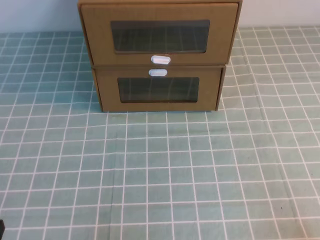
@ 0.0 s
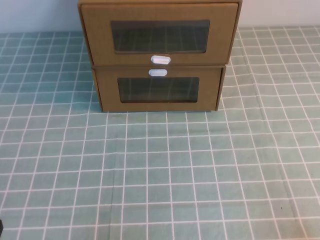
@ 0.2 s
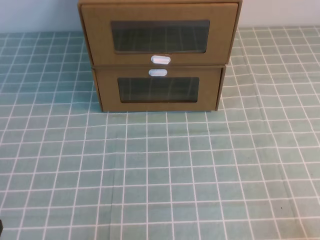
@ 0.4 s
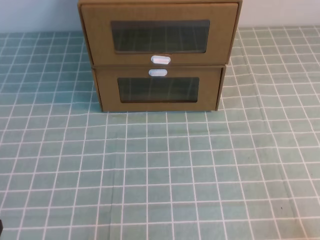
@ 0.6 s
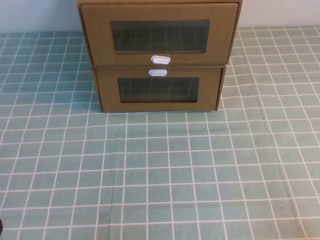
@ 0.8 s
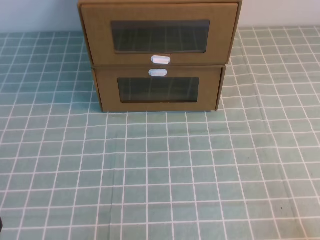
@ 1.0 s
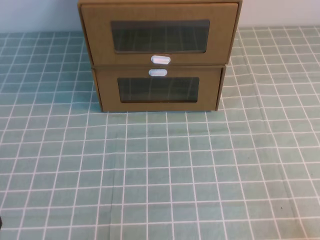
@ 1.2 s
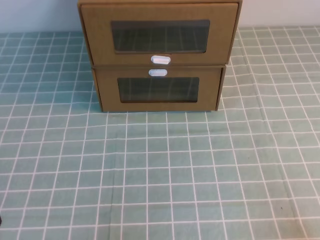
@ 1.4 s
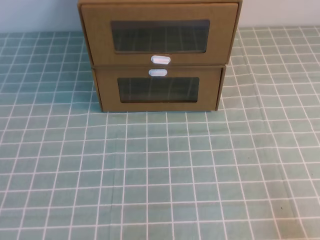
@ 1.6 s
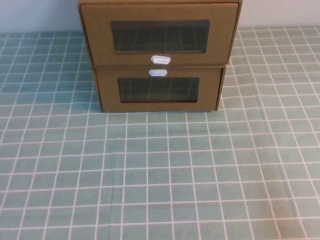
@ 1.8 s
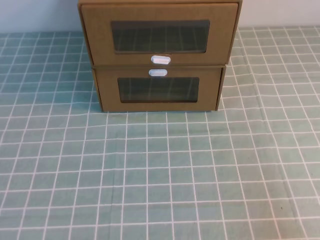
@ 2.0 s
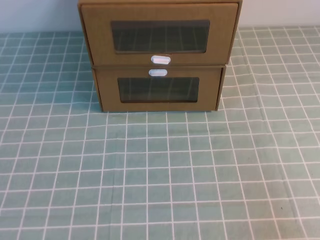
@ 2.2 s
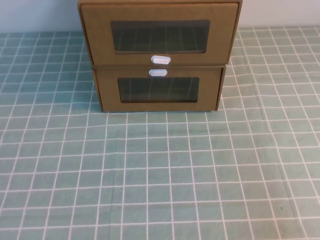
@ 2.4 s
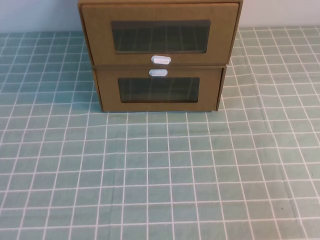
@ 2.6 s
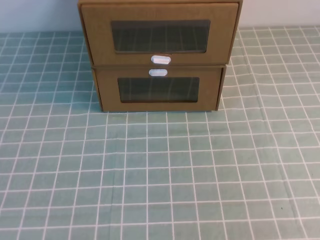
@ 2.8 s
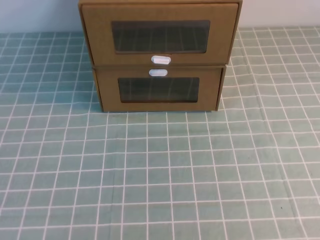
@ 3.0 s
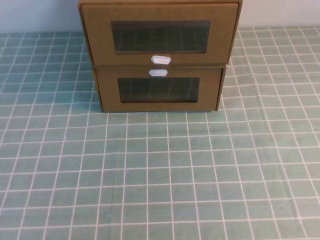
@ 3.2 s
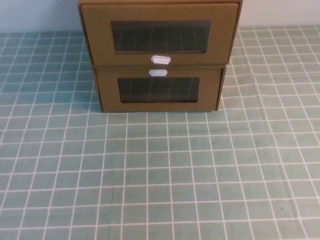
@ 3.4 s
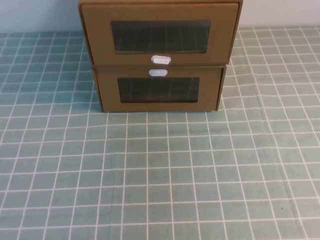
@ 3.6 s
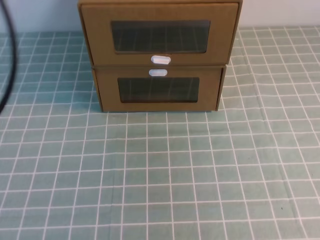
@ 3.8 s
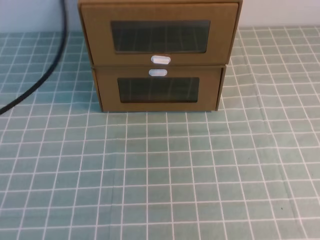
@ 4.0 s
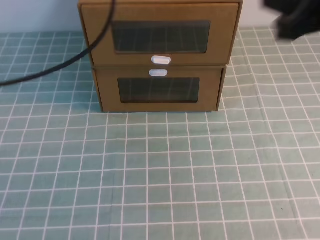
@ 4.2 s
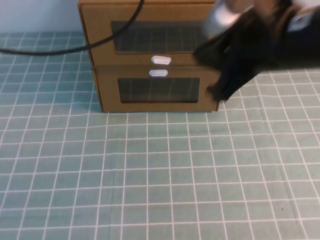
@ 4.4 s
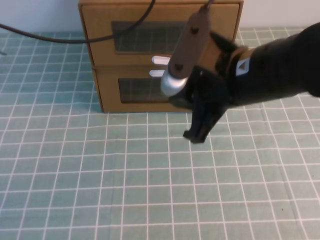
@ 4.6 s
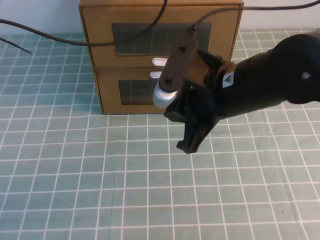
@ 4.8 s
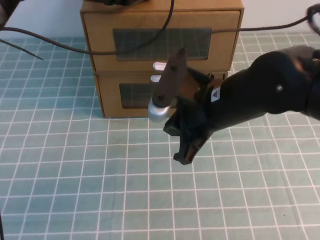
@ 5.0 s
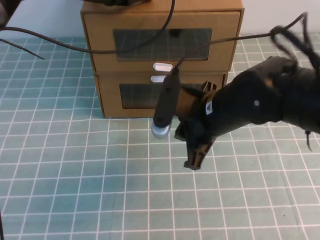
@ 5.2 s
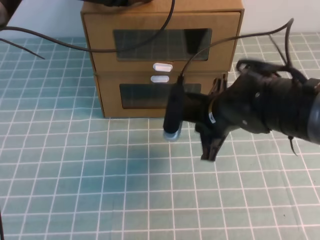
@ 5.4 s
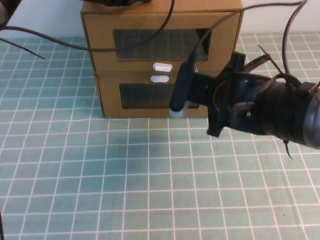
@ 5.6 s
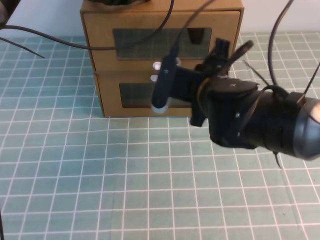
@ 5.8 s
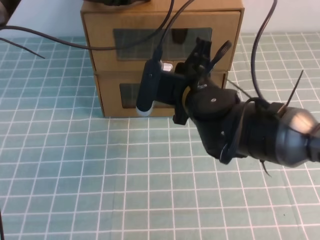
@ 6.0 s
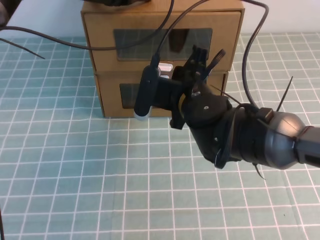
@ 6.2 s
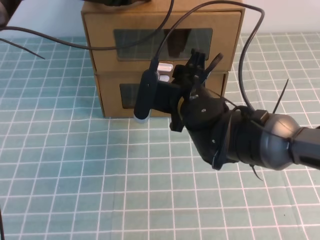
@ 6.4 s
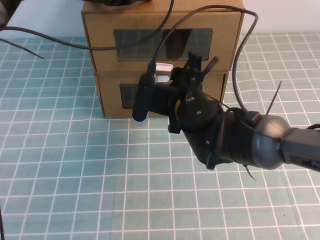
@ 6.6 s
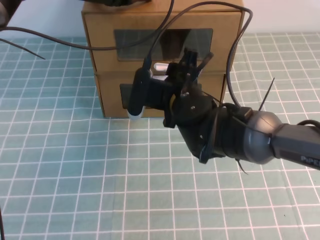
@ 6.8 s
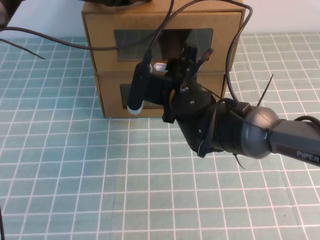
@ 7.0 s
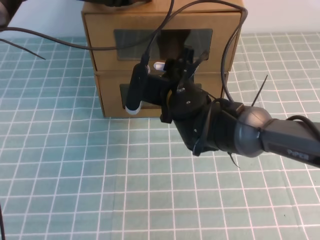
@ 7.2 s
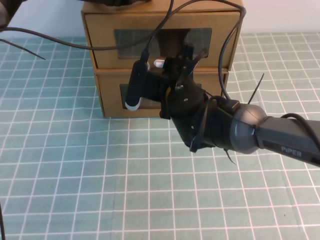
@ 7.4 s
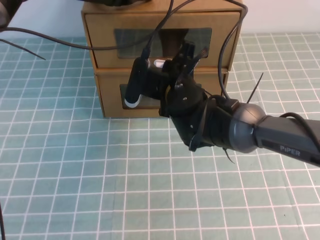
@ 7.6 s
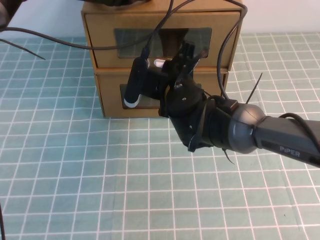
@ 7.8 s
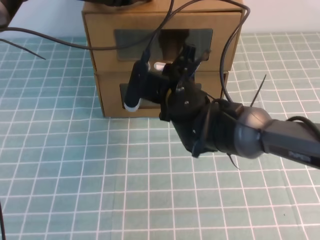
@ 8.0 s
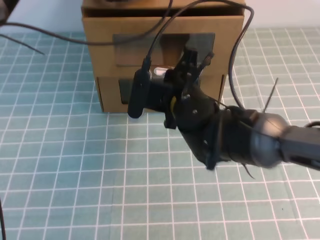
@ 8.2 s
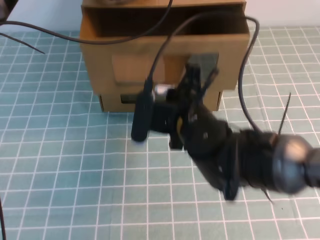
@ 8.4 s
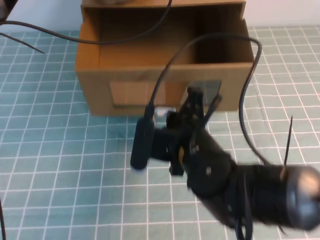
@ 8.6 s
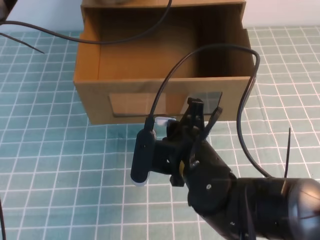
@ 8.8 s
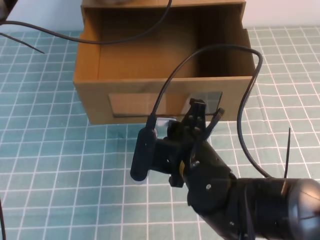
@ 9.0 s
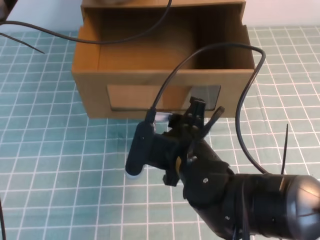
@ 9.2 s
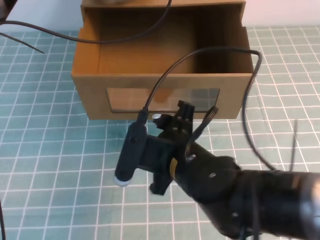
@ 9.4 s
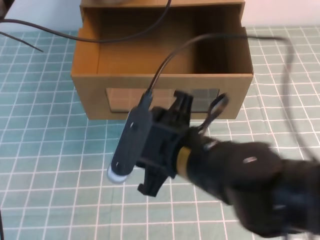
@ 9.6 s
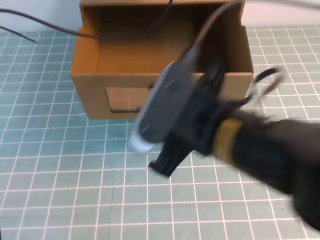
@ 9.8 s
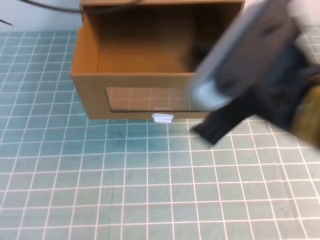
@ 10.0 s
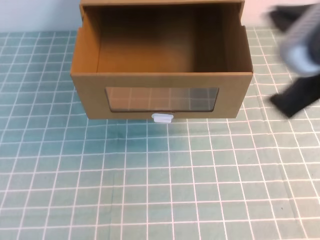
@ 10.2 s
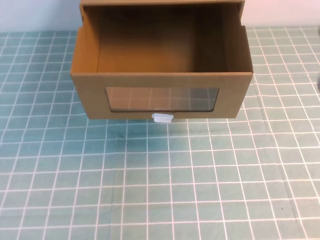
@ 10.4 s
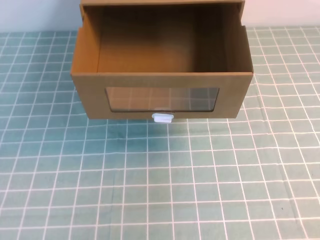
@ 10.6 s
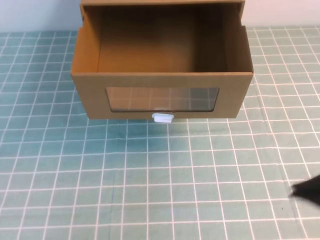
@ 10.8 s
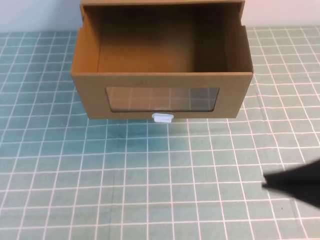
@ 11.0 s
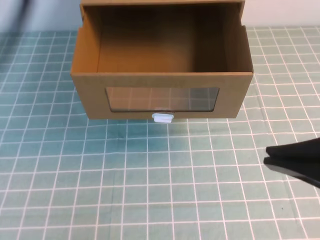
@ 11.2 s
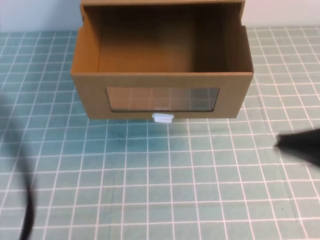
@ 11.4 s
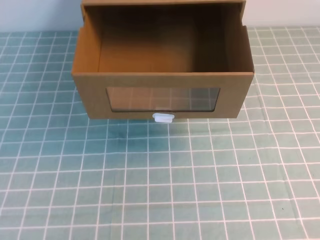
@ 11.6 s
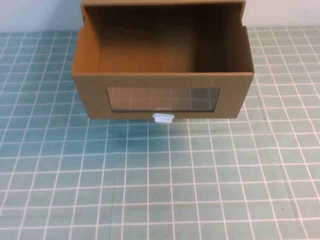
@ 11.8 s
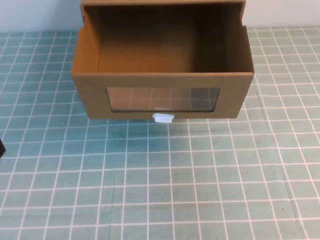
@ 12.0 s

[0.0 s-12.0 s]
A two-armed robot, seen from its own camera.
Task of the whole recording: open the shoebox on the cyan tablecloth.
1.6 to 3.0 s: The right gripper is displaced upward by about 25 cm.
3.0 to 4.4 s: The left gripper heads forward, covering roughly 40 cm. The right gripper shifts some 35 cm forward and to the left.
4.4 to 6.0 s: The left gripper travels forward and downward by approximately 10 cm. The right gripper heads downward, to the left and forward, covering roughly 15 cm.
6.0 to 7.6 s: The right gripper moves roughly 5 cm, and opens, then closes once more.
7.6 to 9.0 s: The right gripper shifts about 15 cm backward.
9.0 to 10.4 s: The left gripper shifts about 25 cm upward and backward, while the right gripper goes some 25 cm upward, to the right and backward, and opens and closes again.
10.4 to 12.0 s: The left gripper shifts about 30 cm backward and downward. Meanwhile the right gripper travels to the right by about 5 cm.

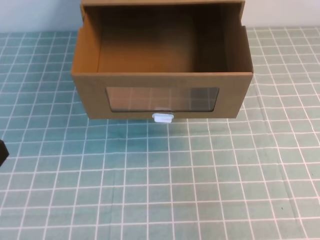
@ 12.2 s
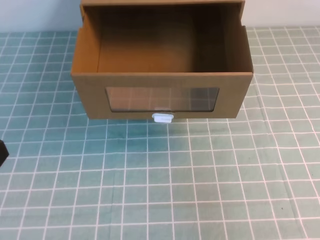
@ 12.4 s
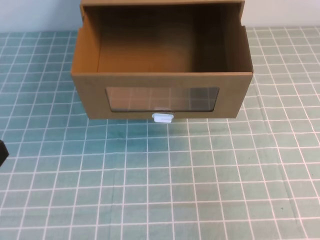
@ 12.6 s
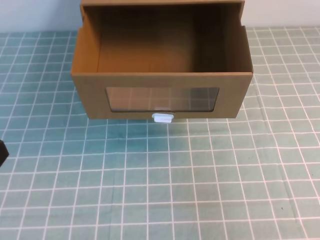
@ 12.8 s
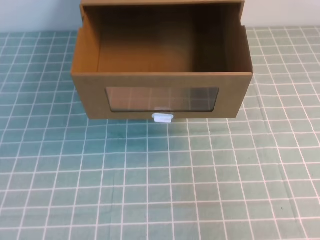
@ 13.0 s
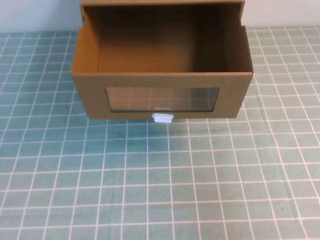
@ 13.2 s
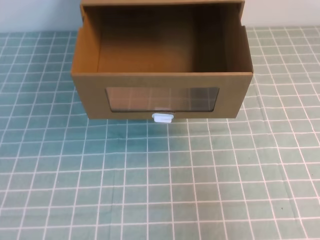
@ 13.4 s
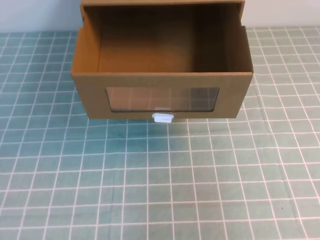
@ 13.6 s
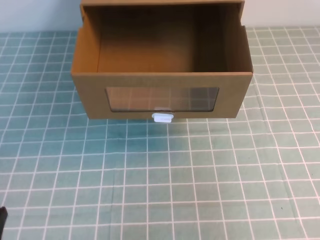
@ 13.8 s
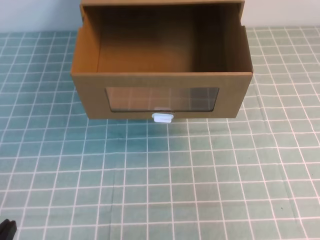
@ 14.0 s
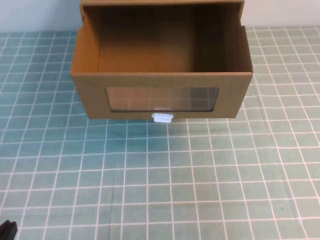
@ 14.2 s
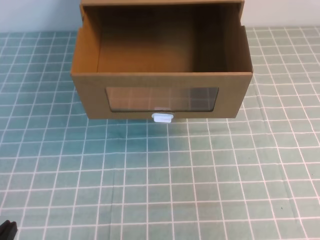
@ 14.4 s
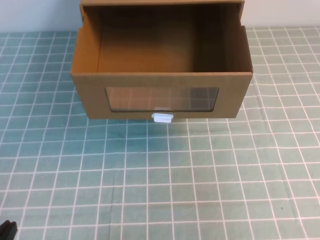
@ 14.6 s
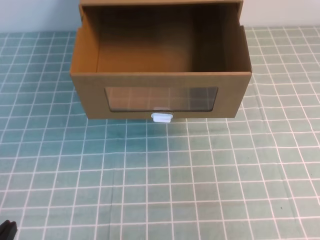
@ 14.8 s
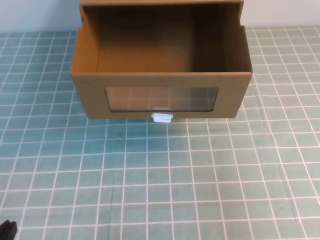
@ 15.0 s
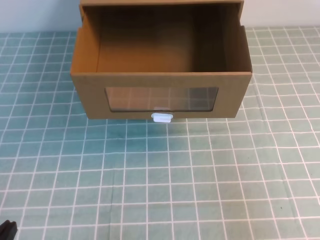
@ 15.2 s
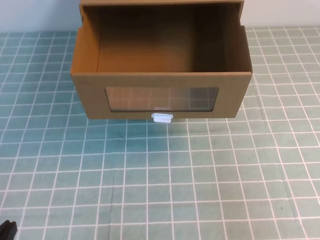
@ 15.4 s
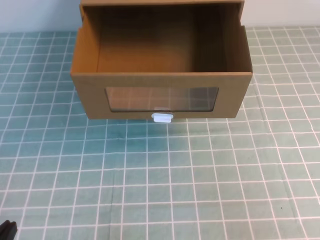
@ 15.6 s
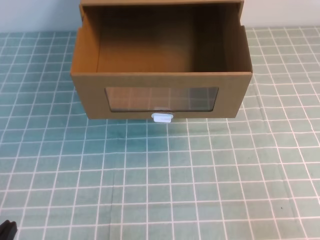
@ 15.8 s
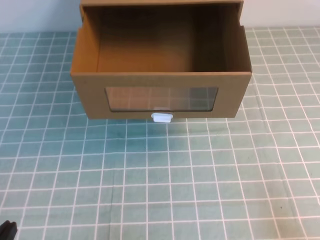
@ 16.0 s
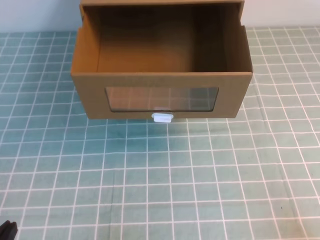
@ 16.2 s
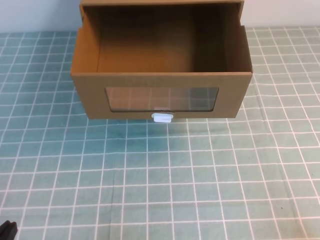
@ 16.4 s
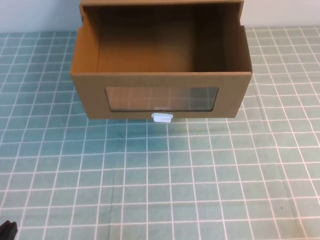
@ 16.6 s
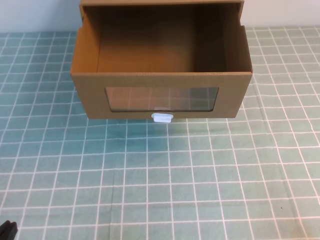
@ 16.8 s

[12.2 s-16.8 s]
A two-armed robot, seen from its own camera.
Task of the whole recording: open the shoebox on the cyan tablecloth.
15.2 to 16.8 s: The right gripper moves downward, some 15 cm.

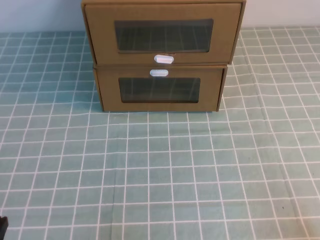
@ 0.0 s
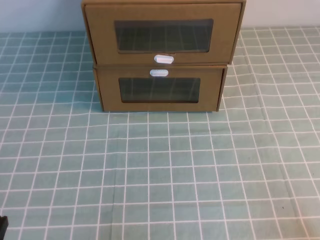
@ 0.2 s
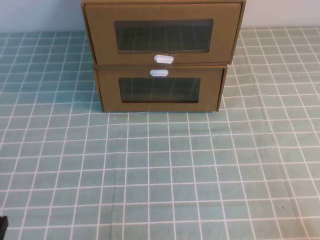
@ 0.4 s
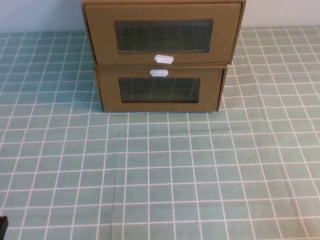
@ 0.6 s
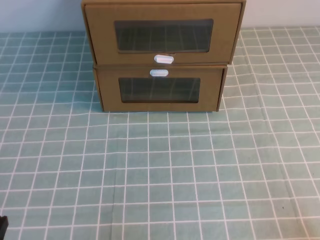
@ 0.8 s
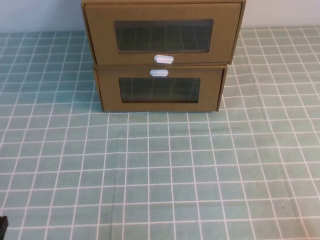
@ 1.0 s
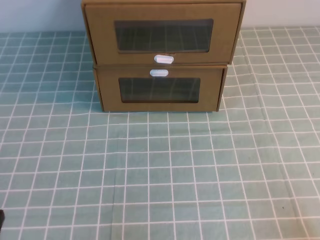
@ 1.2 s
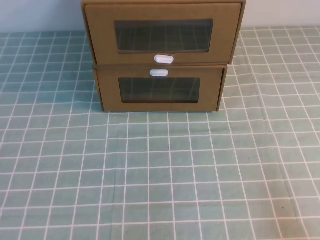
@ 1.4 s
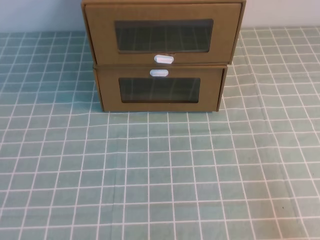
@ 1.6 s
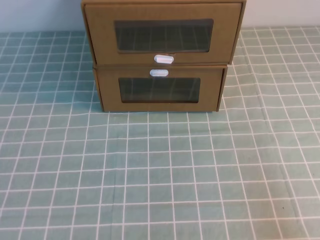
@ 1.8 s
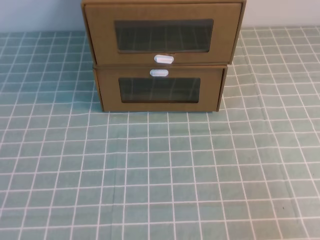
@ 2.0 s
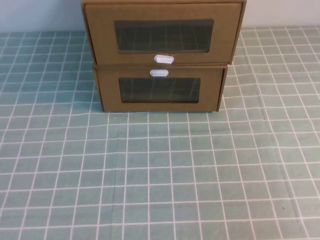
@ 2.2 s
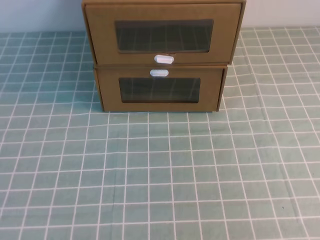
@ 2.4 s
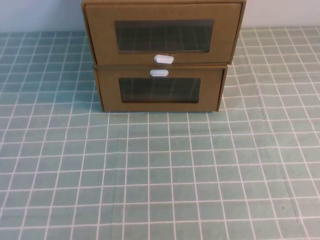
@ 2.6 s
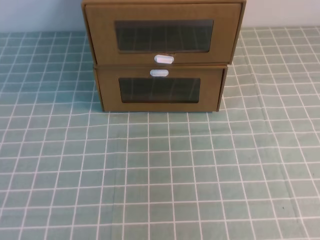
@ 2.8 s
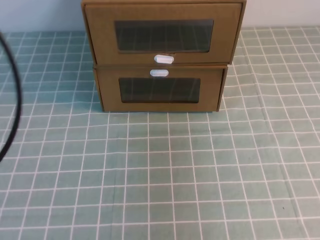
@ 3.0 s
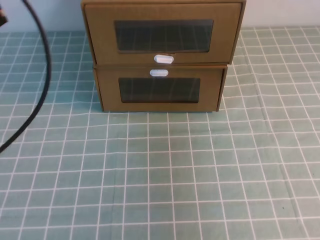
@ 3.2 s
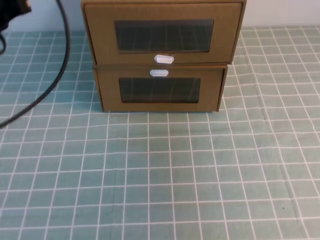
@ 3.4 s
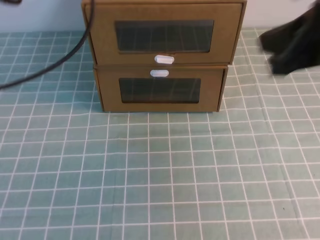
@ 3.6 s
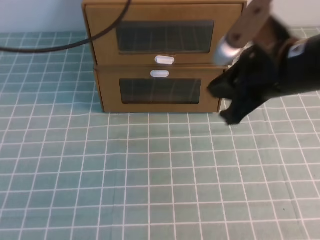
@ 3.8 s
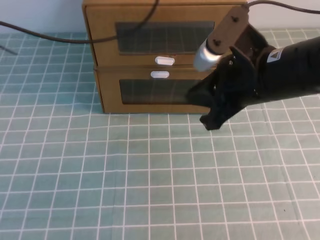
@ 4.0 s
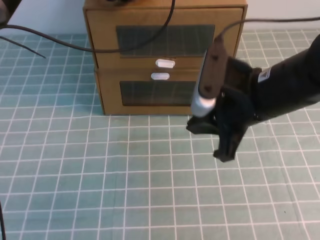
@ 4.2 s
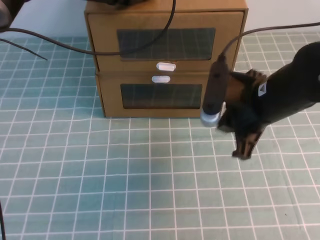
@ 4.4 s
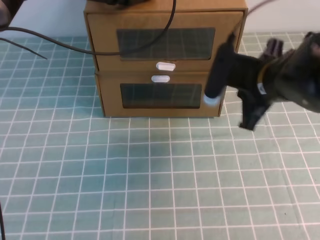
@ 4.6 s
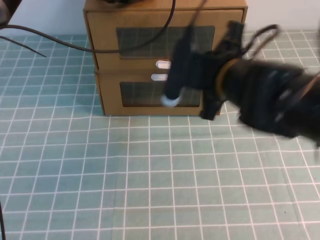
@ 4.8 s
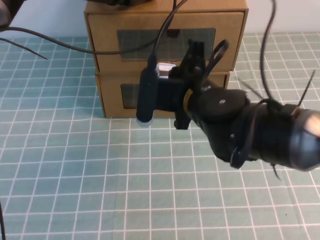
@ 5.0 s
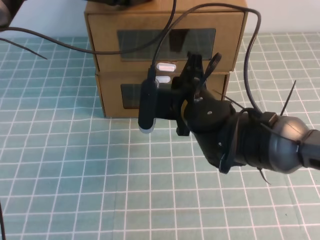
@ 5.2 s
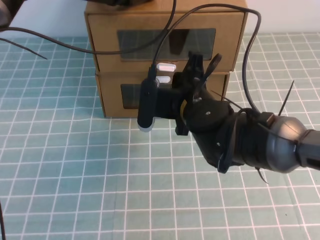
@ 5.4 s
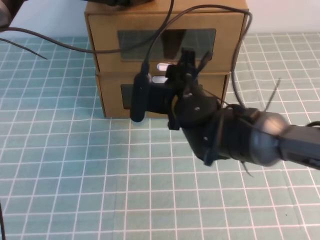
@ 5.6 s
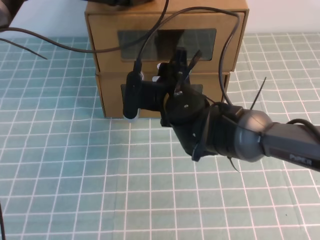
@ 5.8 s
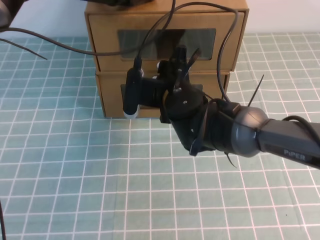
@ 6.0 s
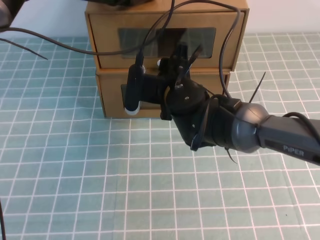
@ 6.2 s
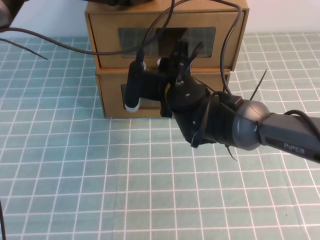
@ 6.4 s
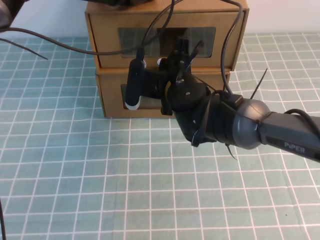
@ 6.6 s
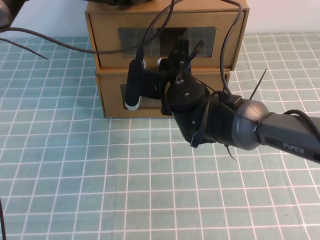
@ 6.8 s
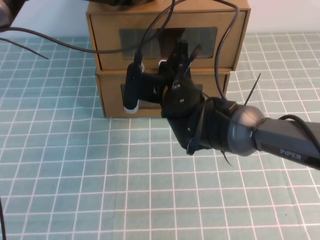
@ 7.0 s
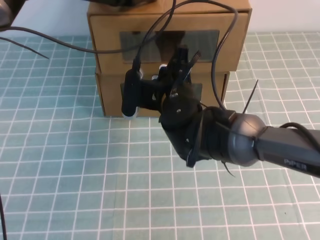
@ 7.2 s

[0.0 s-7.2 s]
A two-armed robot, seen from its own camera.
Task of the whole recording: open the shoebox on the cyan tablecloth.
1.4 to 2.8 s: The right gripper goes roughly 30 cm upward.
2.8 to 4.4 s: The left gripper travels forward and to the right by about 40 cm; the right gripper goes approximately 35 cm forward, downward and to the left.
4.4 to 5.8 s: The right gripper travels to the left, forward and downward by about 15 cm, and opens.
5.8 to 7.2 s: The right gripper closes up.
